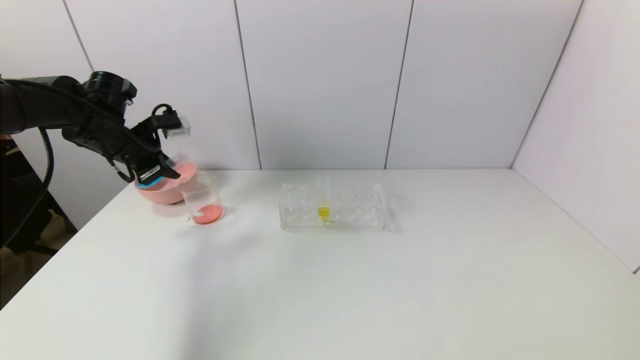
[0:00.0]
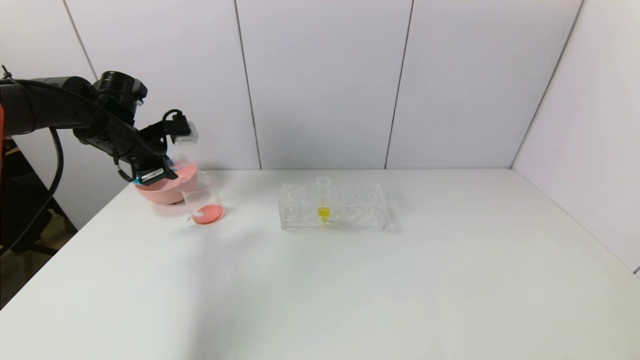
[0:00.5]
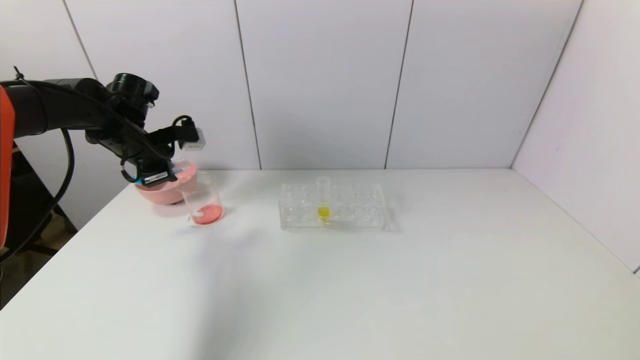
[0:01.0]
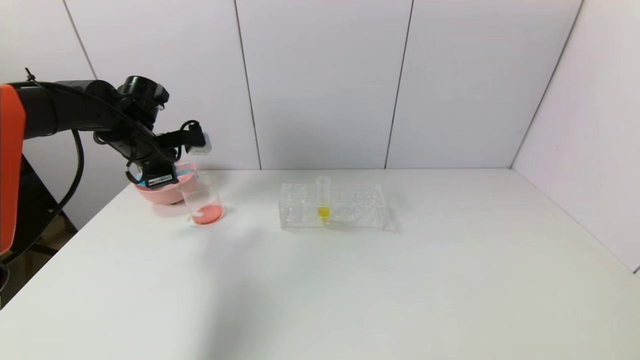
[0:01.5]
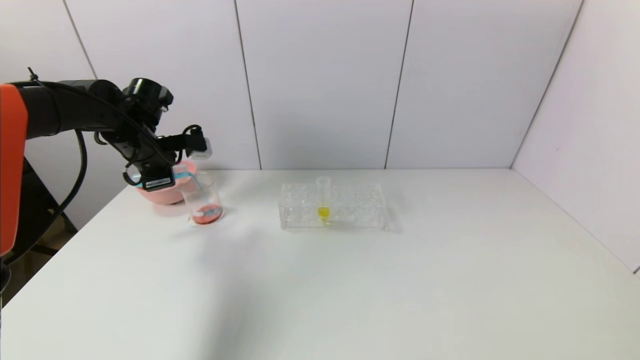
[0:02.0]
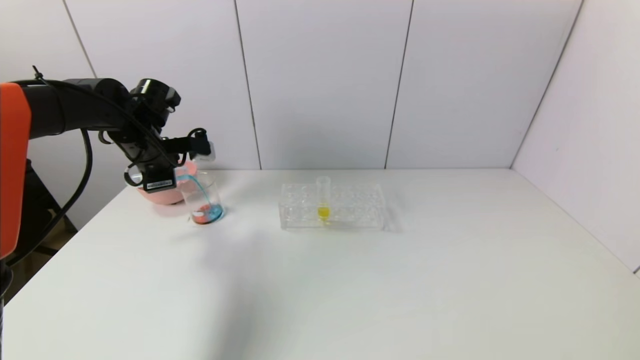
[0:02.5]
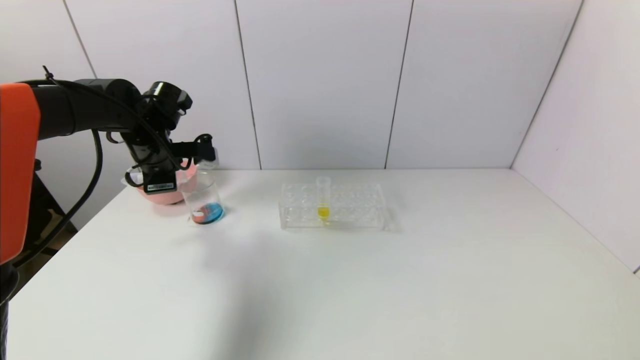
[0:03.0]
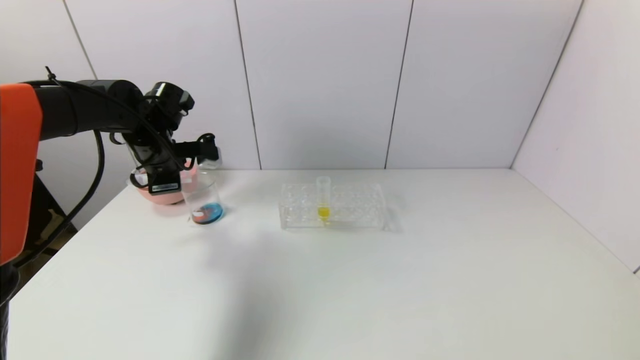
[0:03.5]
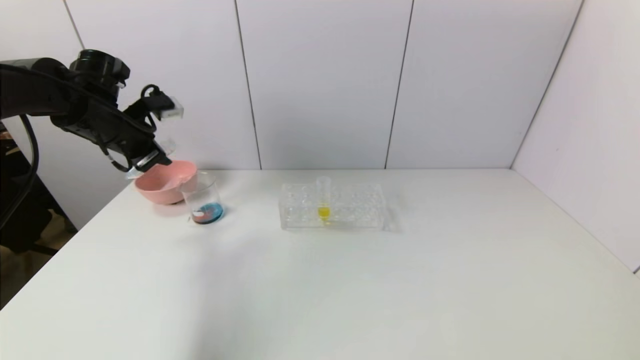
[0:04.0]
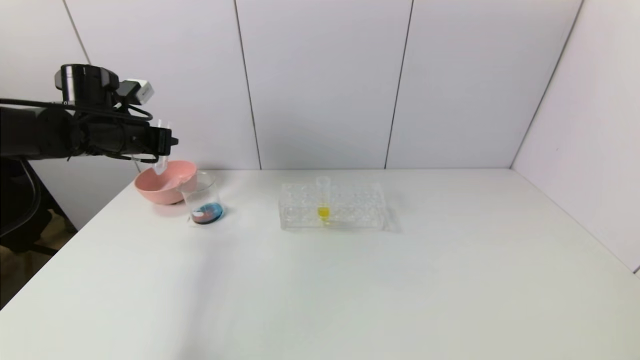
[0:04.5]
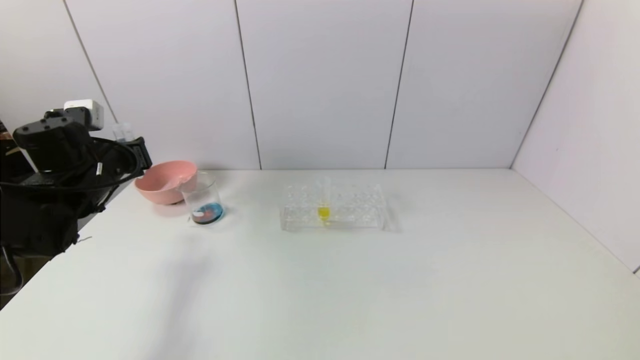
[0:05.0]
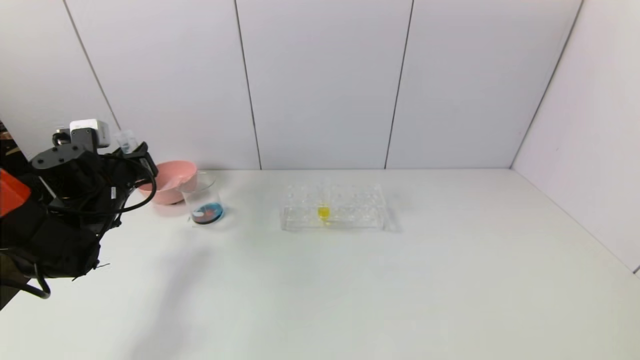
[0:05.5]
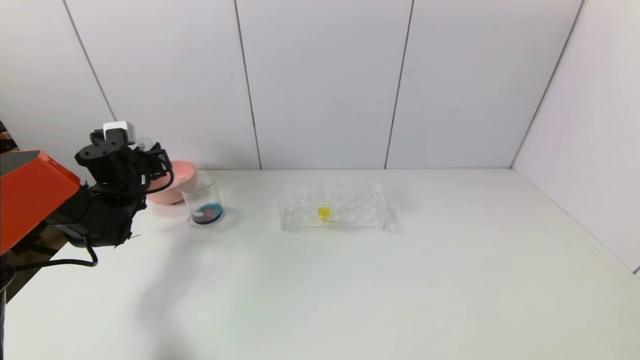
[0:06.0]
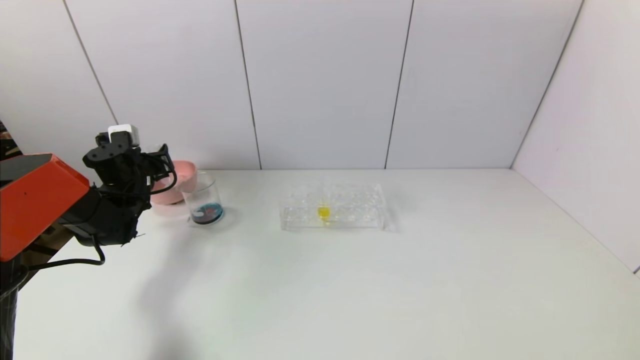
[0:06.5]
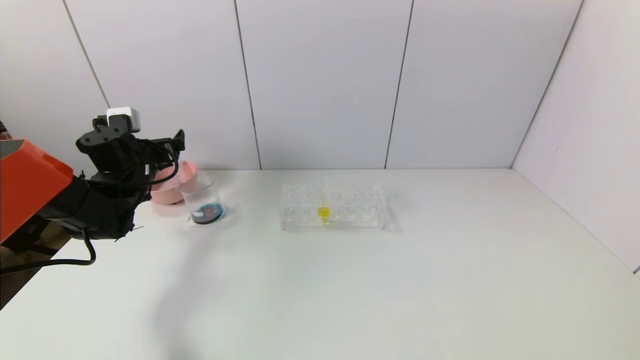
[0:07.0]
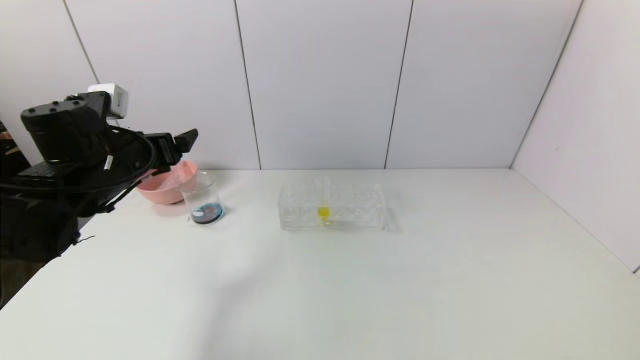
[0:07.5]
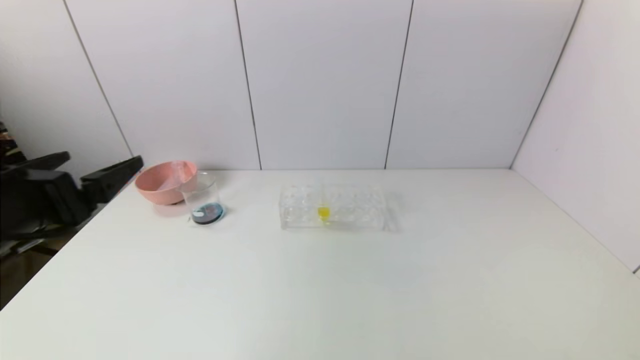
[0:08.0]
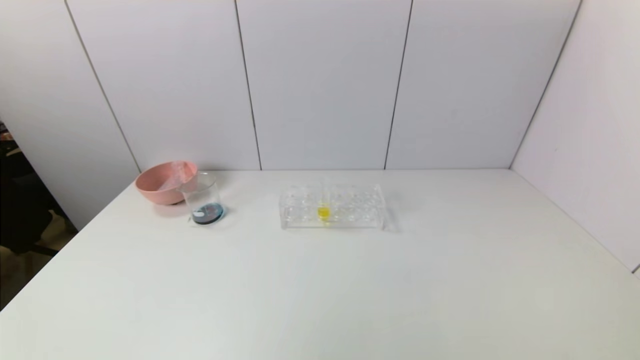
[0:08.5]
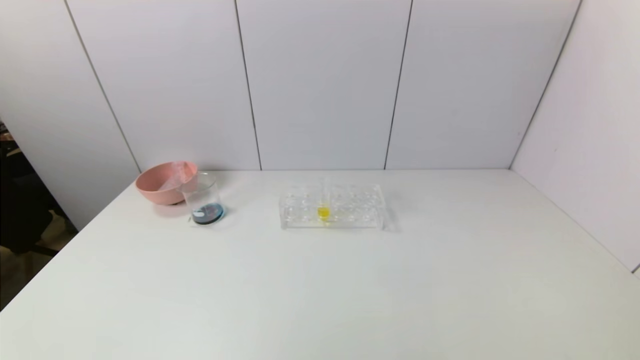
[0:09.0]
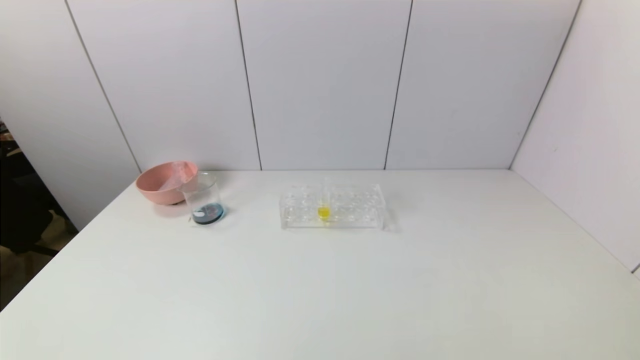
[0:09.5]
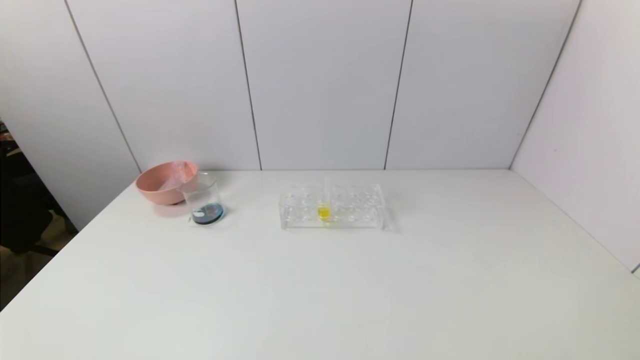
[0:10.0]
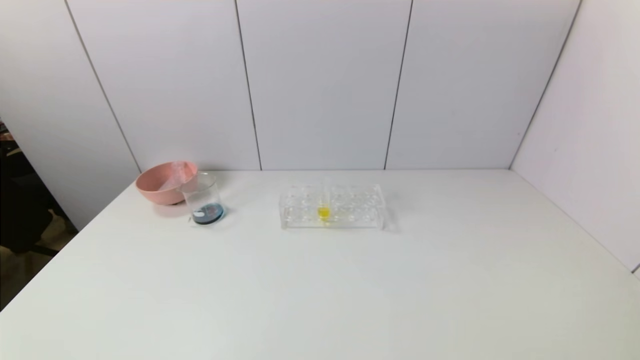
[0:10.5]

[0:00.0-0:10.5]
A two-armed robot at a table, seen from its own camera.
Task of the whole recording: pick up the test tube with red pigment and the test tube with blue pigment by grippers and pour them into the container.
Step, 0:00.0 to 0:03.5: Pour the blue reagent into the graduated cylinder with the left gripper.
Step, 0:04.0 to 0:06.5: Place the test tube into the bowl with the left gripper.
0:02.0 to 0:04.0: The left gripper ends up some 5 cm from where it was.
0:04.0 to 0:06.5: The left gripper heads downward, covering about 15 cm, and opens up.
0:06.5 to 0:08.5: The left gripper goes approximately 40 cm backward, and opens up.
